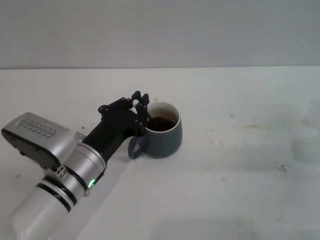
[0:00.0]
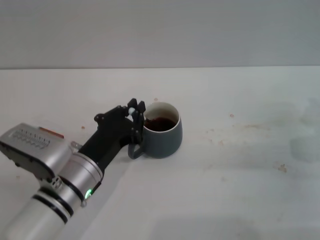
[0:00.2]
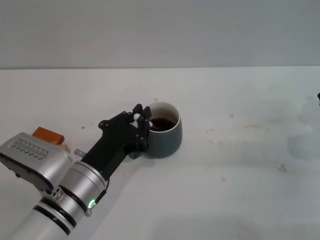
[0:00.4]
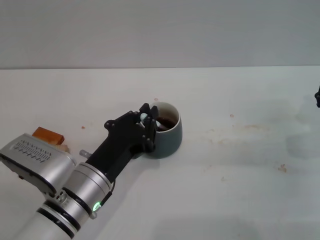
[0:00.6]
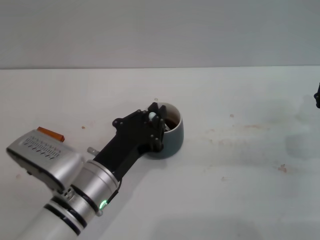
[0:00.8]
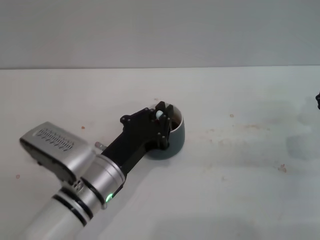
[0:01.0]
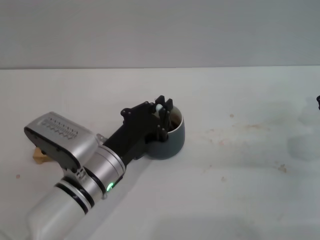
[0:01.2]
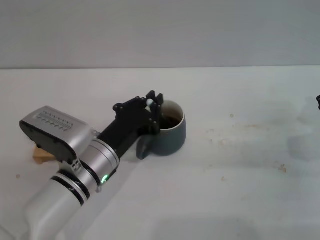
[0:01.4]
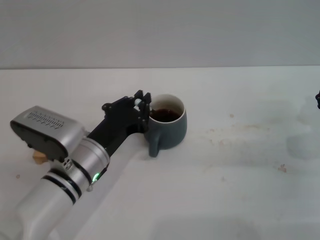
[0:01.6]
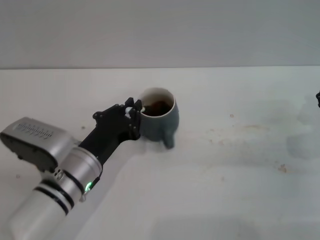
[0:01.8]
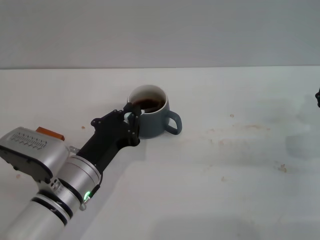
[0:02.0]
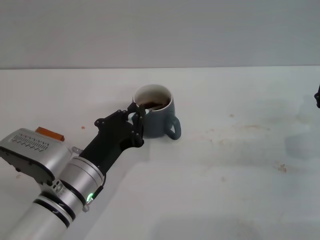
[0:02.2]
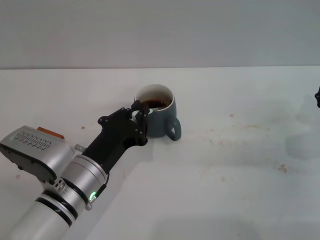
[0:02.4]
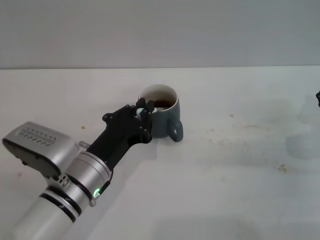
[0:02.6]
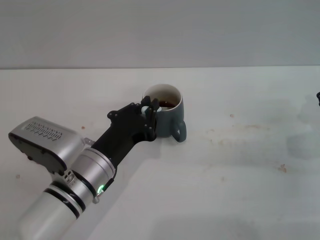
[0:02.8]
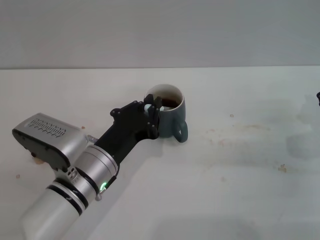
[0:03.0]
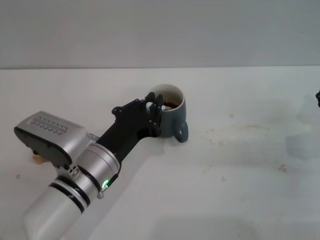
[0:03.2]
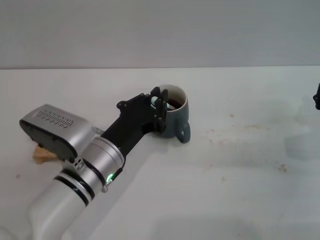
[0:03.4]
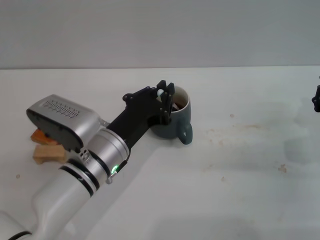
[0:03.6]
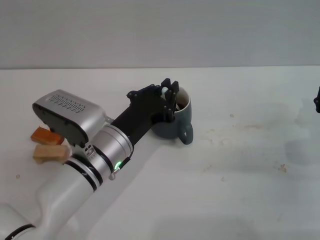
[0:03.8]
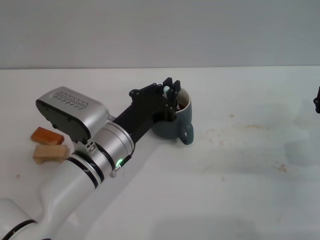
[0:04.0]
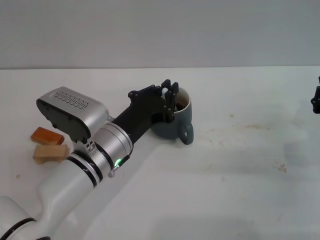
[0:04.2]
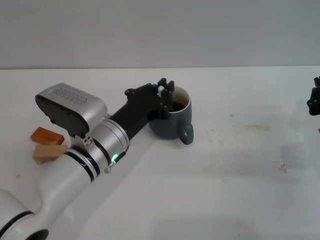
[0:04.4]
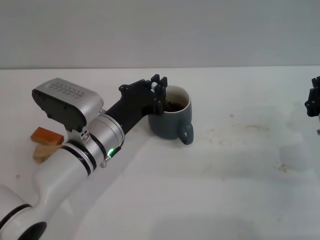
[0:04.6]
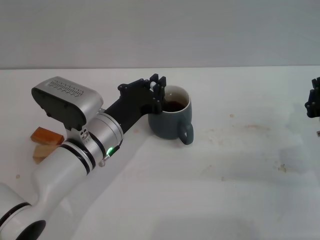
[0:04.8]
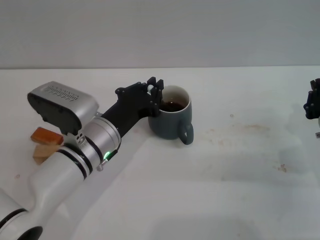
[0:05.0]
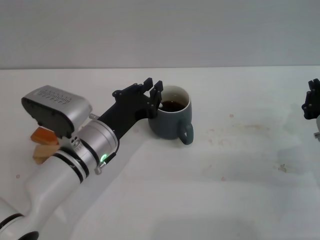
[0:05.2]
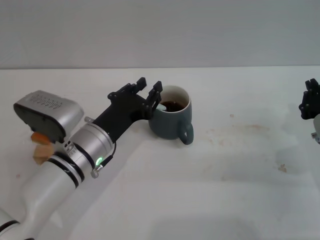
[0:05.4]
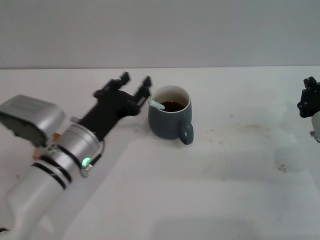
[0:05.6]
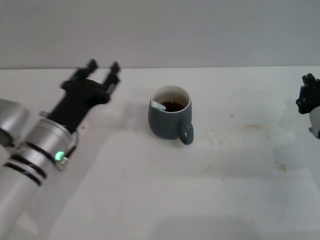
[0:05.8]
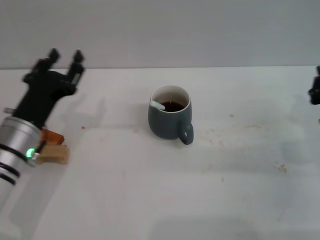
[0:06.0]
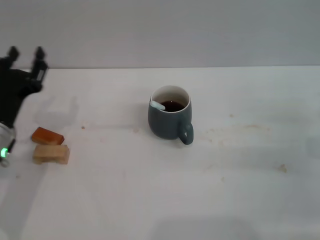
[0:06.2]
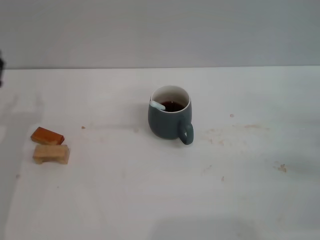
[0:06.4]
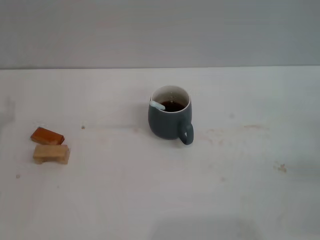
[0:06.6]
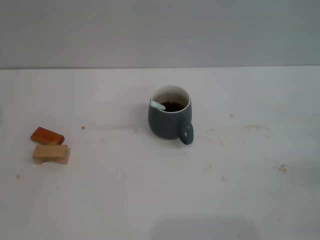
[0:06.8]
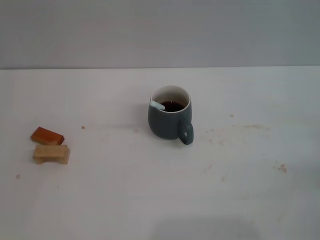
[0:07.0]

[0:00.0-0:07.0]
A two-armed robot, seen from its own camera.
Task of the whole recording: Move the grey cup to the center, lift the blue spoon, stir it three times in the cup, and put the spoon into the cup.
Step, 0:00.0 to 0:05.6: Stir the coffee in the cup with the left gripper.
0:00.0 to 0:02.8: The grippers make only small movements.
0:02.8 to 0:04.2: The left gripper moves about 5 cm.
0:04.2 to 0:05.6: The grippers move only a little.
0:05.6 to 0:07.0: The left gripper travels to the left by about 20 cm. The right gripper travels to the right by some 10 cm.
